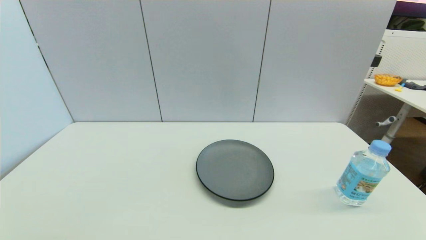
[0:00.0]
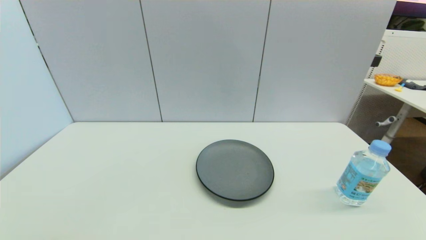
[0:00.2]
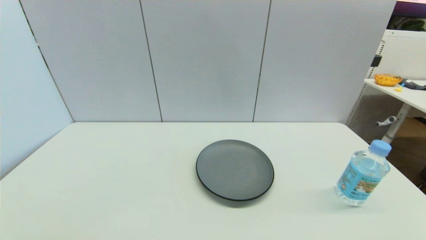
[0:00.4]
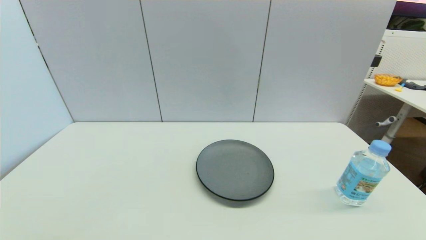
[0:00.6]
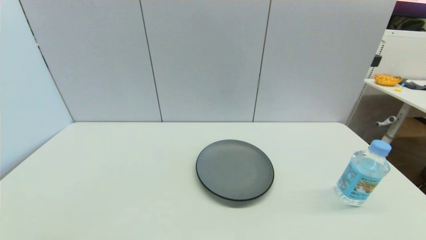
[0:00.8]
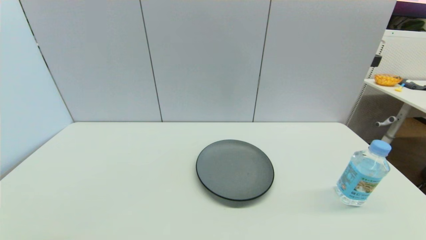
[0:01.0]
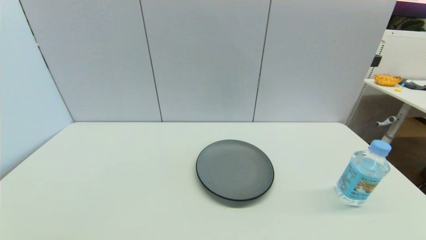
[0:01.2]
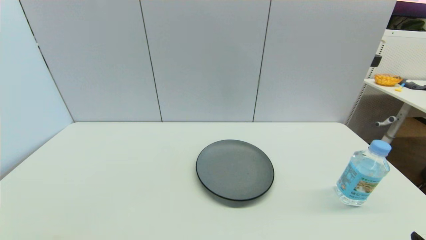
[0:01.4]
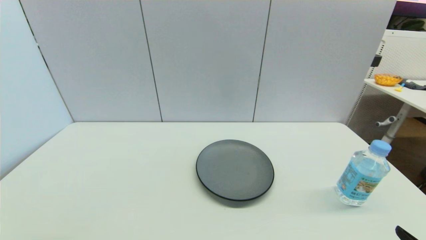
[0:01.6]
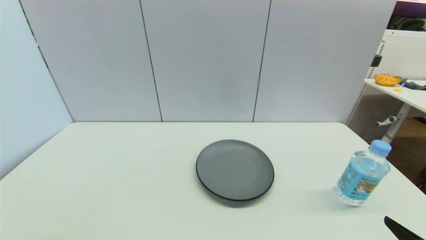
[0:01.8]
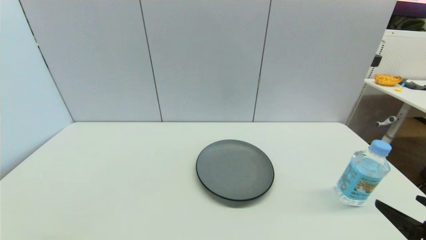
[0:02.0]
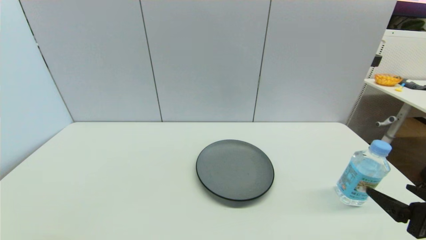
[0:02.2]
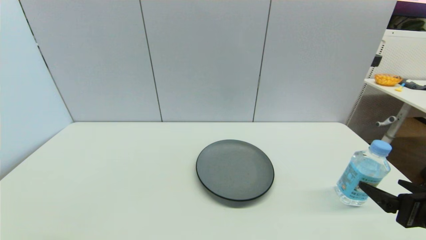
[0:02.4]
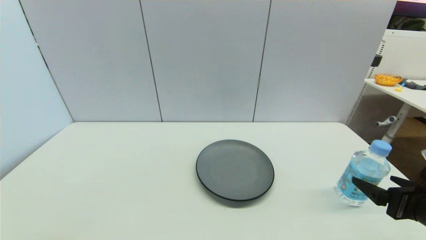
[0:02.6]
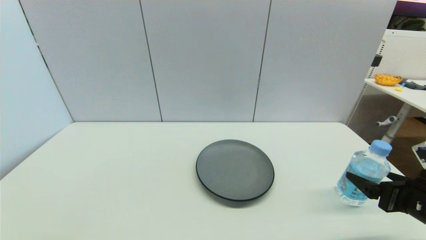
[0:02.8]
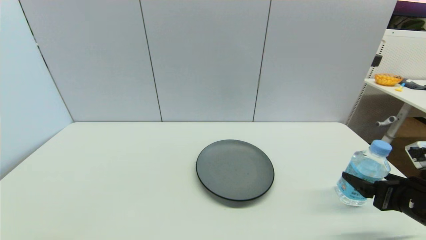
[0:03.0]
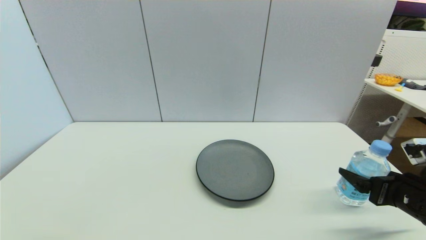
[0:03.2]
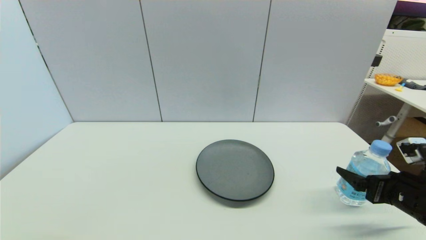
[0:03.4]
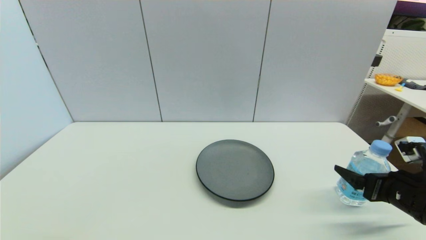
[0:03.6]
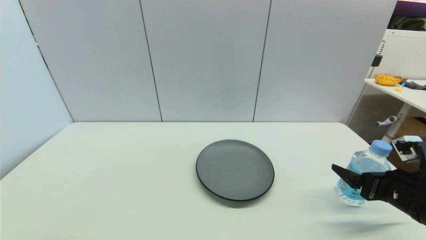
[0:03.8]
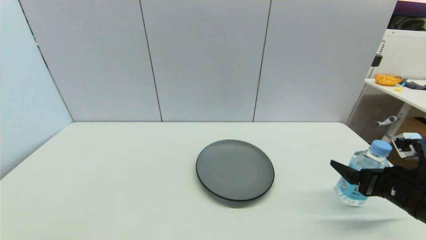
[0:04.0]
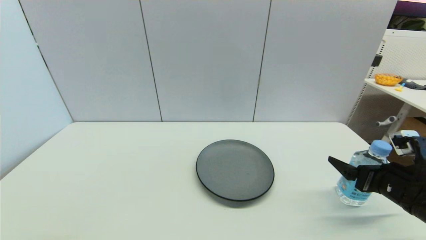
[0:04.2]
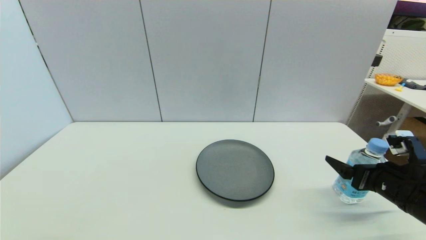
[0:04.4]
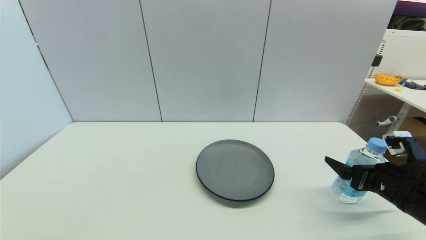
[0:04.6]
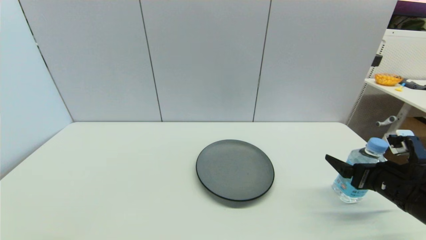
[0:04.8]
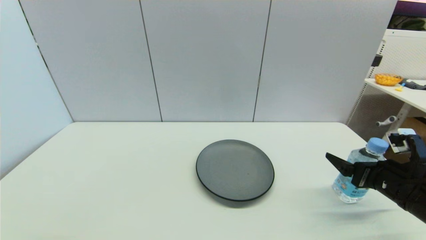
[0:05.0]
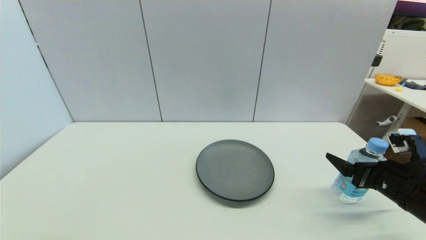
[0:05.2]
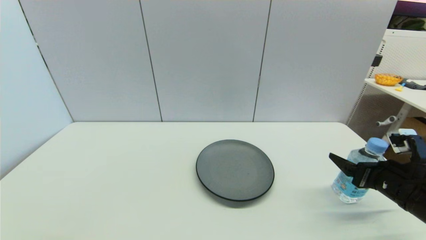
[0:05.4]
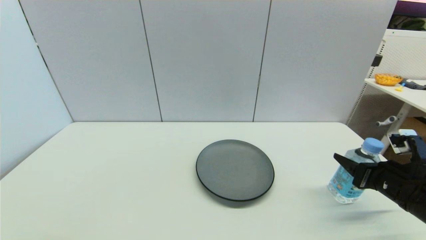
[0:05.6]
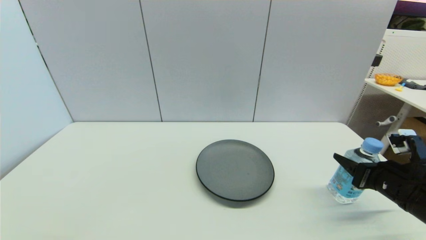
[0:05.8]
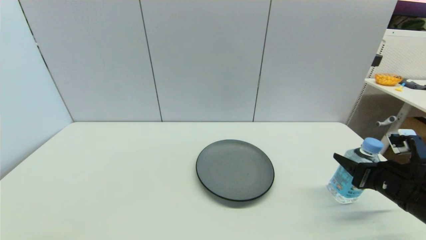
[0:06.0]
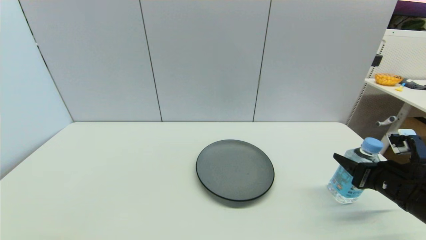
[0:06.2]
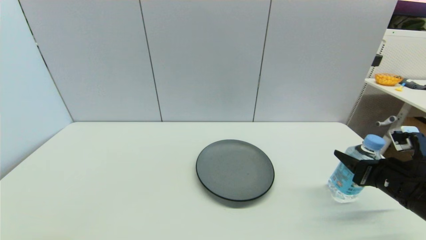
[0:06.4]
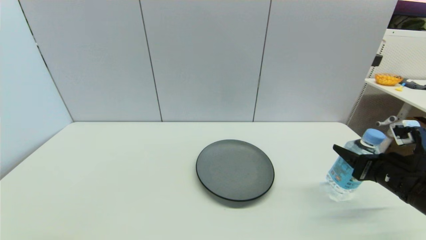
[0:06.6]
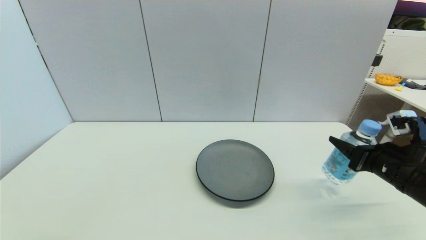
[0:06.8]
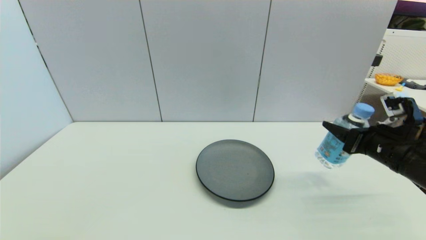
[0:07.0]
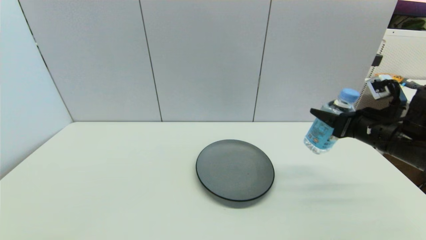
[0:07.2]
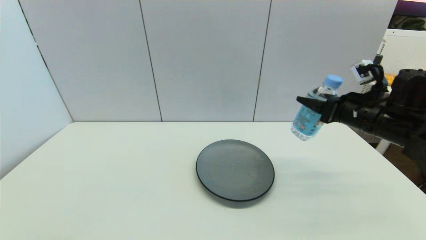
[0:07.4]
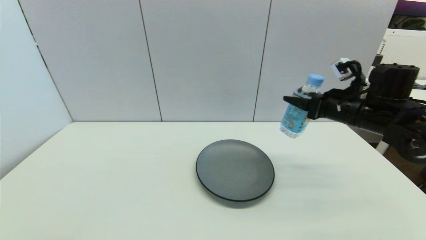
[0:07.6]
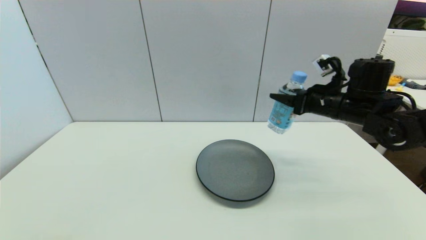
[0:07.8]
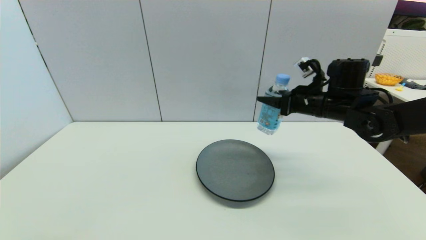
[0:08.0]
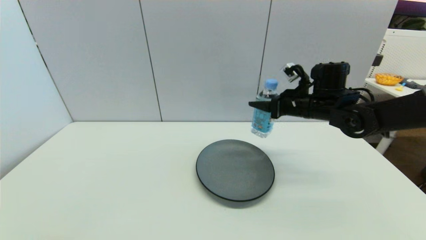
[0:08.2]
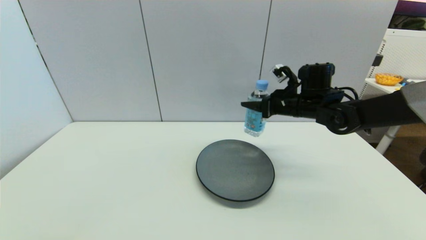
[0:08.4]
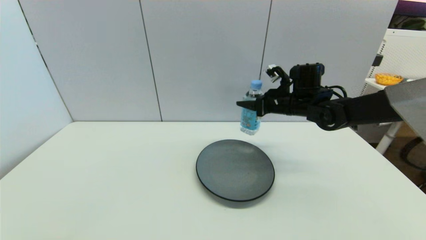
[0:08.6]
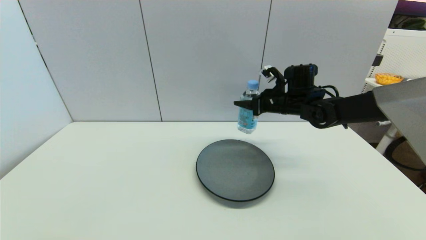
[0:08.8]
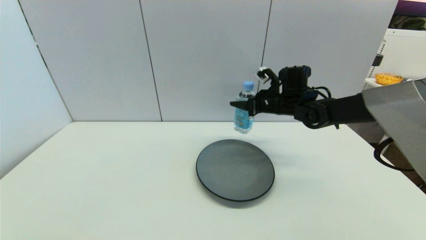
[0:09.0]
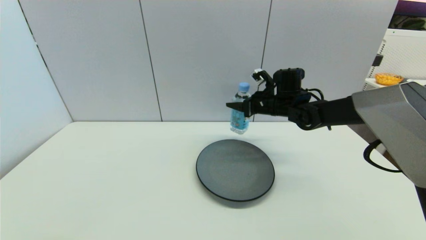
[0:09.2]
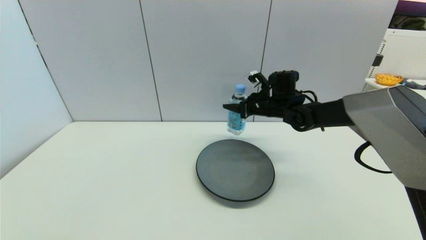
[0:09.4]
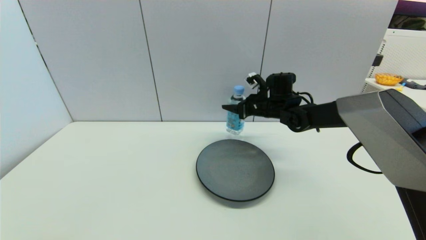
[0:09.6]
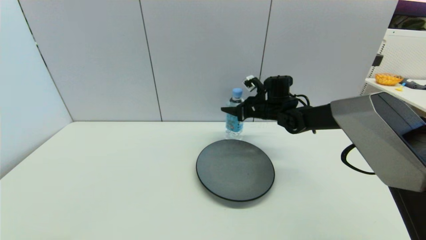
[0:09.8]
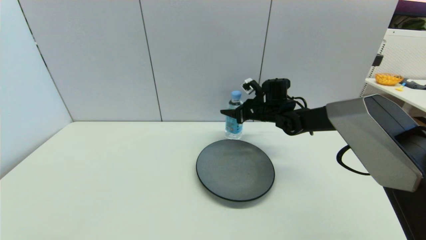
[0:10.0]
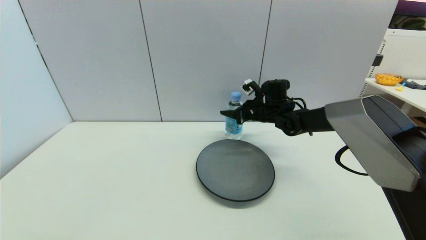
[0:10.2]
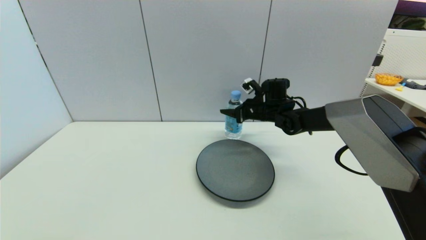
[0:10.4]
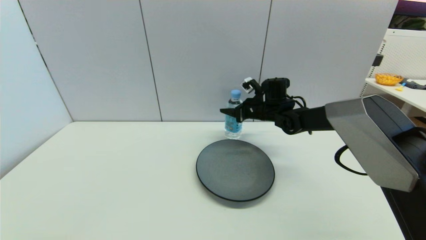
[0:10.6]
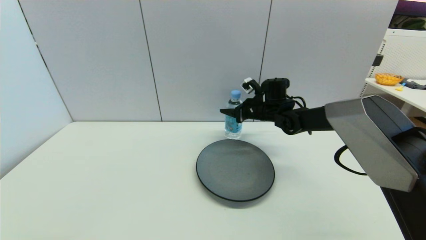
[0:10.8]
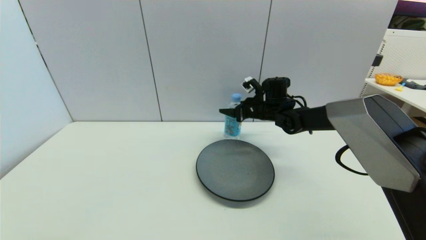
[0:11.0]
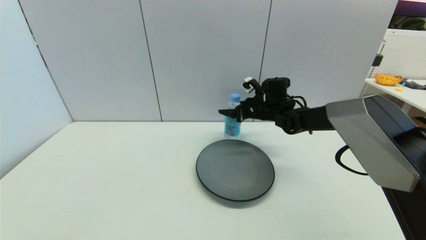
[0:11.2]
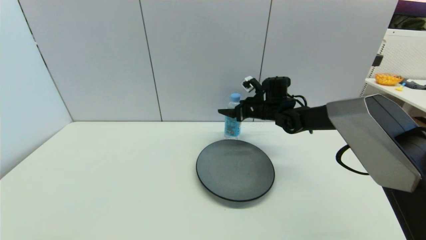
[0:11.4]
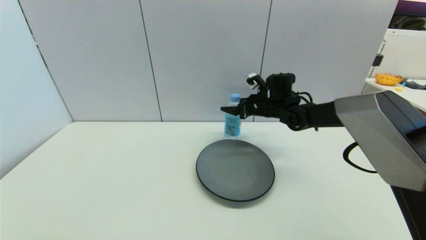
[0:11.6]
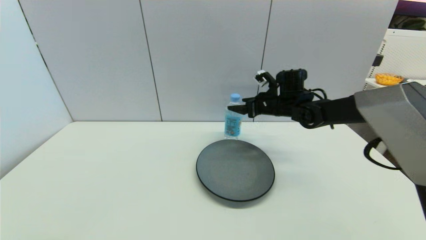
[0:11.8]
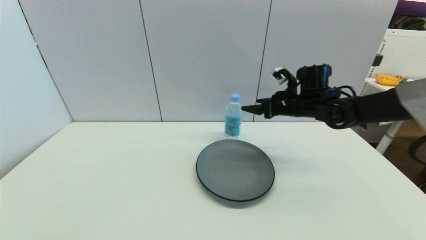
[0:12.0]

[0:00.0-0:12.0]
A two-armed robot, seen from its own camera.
Step, 0:01.4 to 0:05.8: Grasp the soda water with right gripper.
Step, 0:06.0 to 0:11.0: Place the soda water on the table with right gripper.
0:01.6 to 0:03.0: The right gripper goes some 15 cm forward.
0:03.0 to 0:04.4: The grippers move only a little.
0:04.4 to 0:06.0: The right gripper closes.
0:06.0 to 0:07.6: The right gripper is displaced forward and upward by about 15 cm.
0:07.6 to 0:09.0: The right gripper moves forward and to the left, approximately 15 cm.
0:09.0 to 0:10.4: The right gripper moves about 5 cm.
0:10.4 to 0:12.0: The right gripper is displaced to the right and backward by some 10 cm, and opens up.

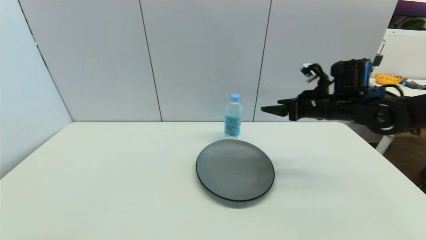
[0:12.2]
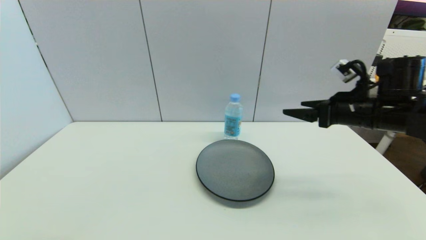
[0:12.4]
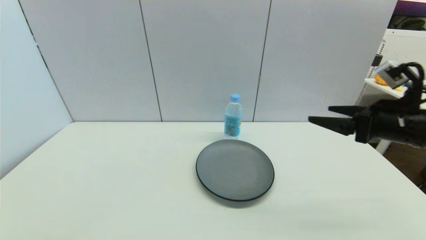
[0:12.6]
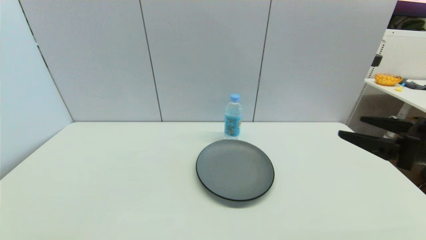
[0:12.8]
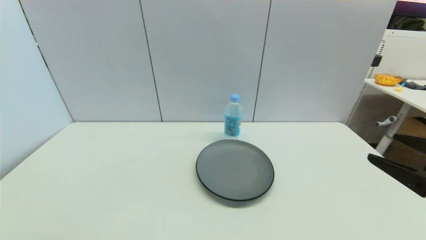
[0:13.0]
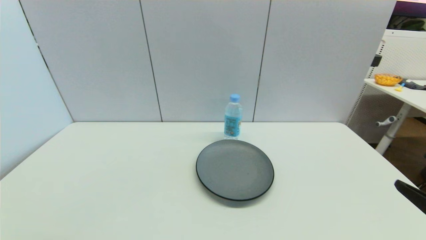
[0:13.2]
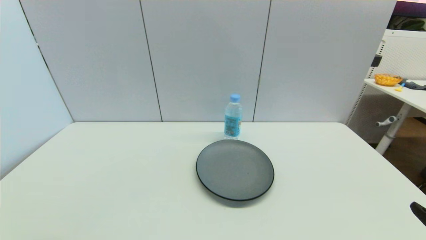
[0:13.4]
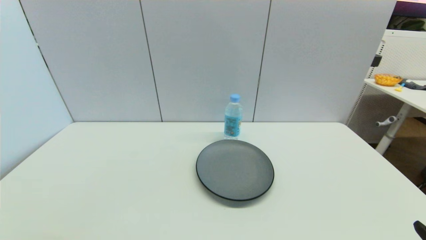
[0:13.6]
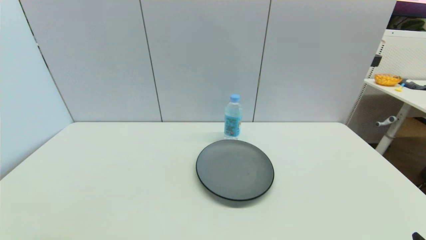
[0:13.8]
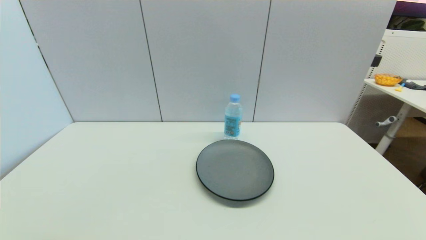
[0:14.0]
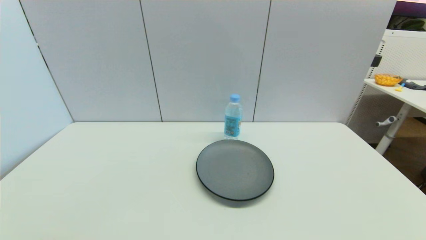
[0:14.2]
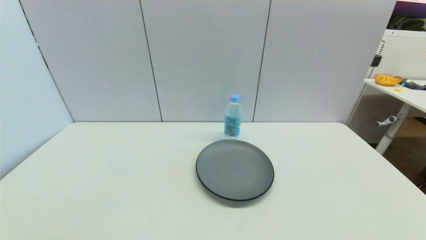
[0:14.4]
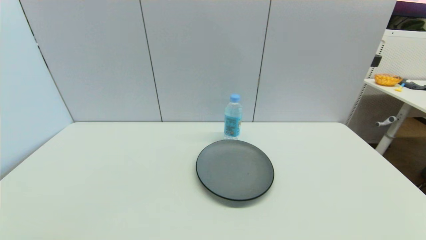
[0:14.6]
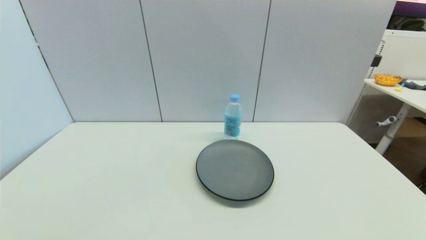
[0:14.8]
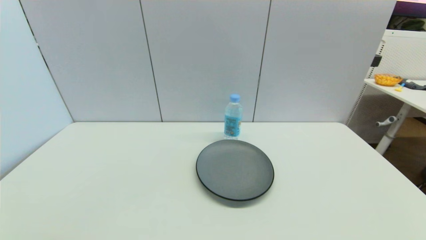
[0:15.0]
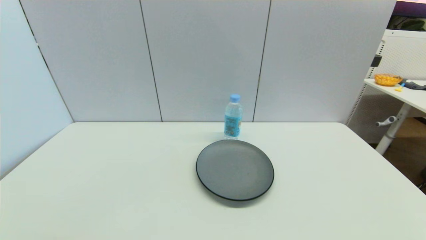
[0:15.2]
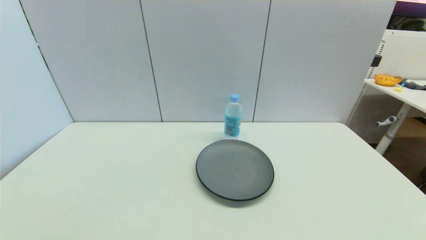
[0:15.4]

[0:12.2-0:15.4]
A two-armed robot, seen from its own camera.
0:12.2 to 0:13.8: The right gripper is displaced backward by approximately 35 cm.

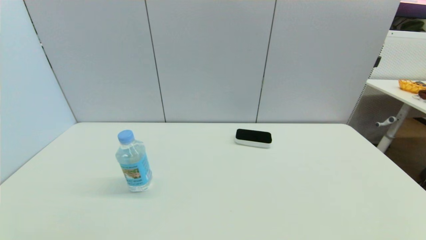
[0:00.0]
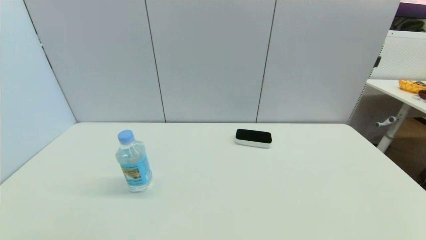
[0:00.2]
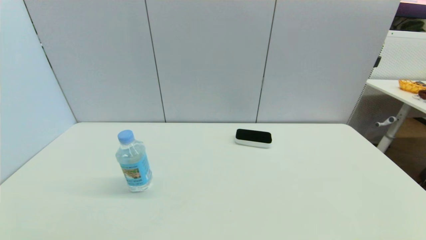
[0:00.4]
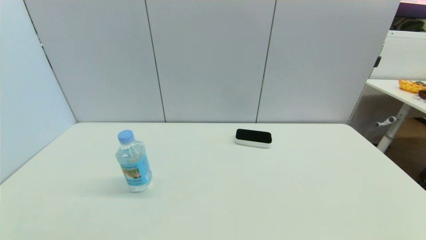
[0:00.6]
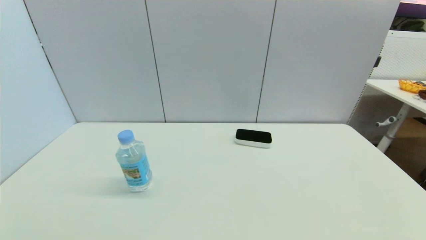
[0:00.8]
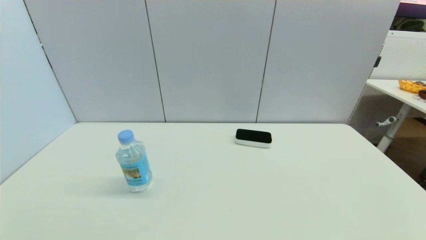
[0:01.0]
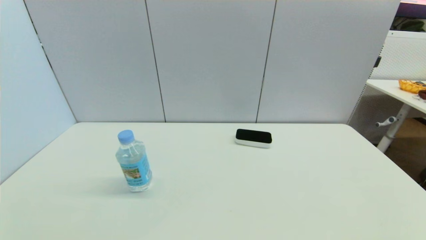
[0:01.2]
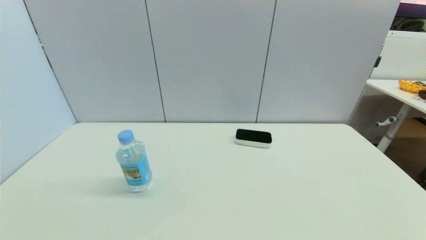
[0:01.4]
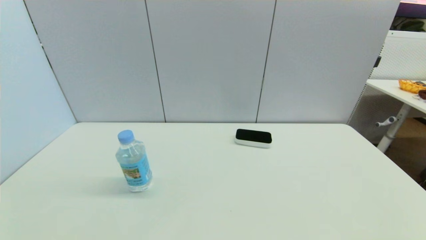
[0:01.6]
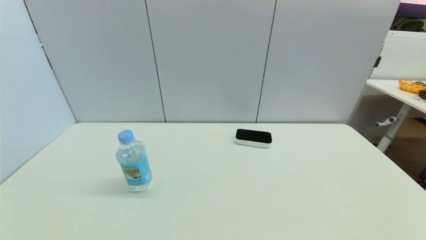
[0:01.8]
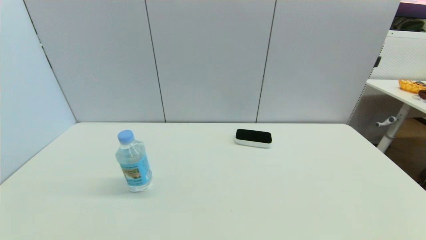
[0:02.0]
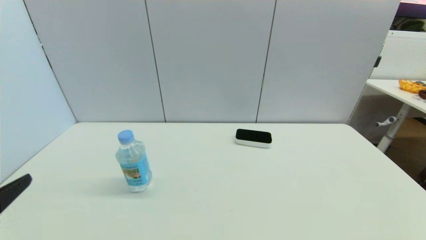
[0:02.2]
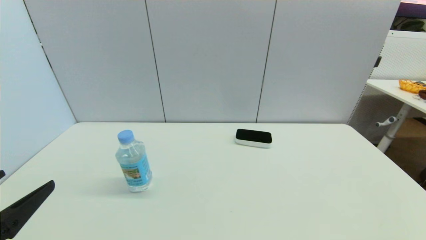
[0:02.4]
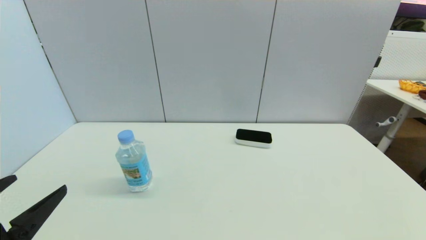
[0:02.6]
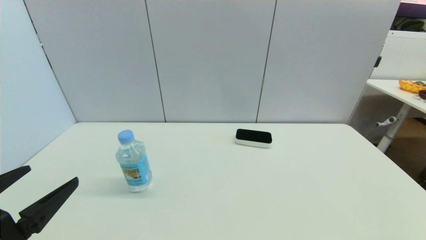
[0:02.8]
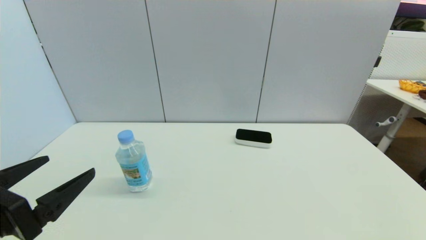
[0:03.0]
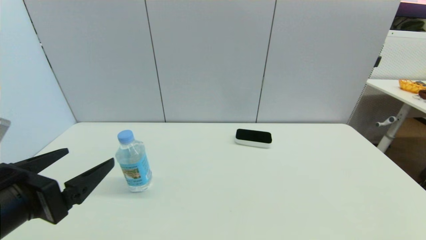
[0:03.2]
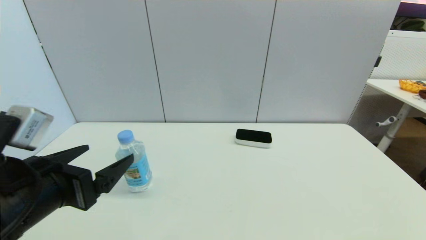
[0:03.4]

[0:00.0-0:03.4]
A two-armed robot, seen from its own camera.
0:01.6 to 0:03.4: The left gripper moves forward and to the right, approximately 20 cm.
